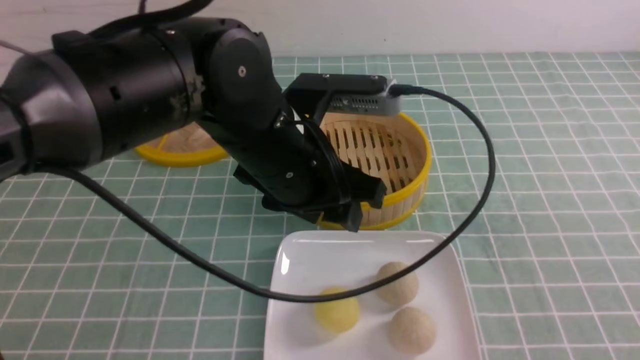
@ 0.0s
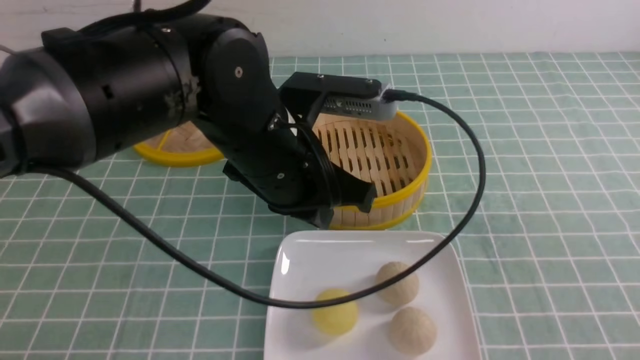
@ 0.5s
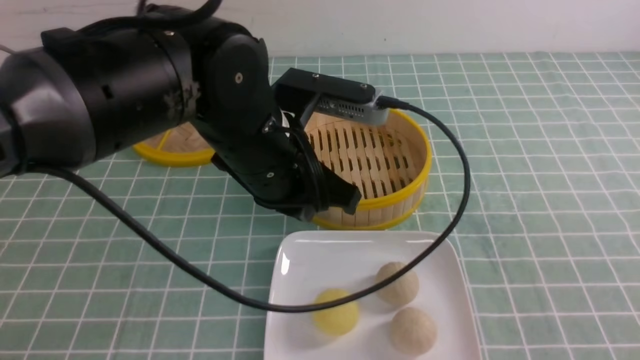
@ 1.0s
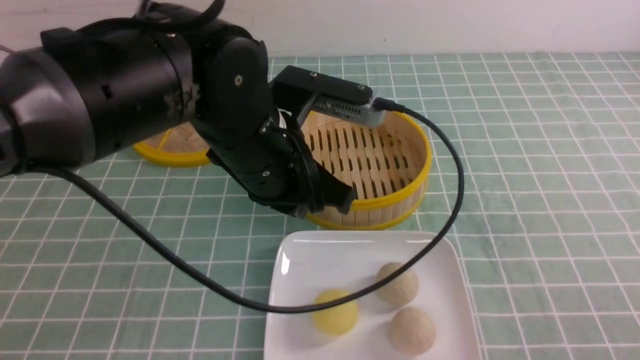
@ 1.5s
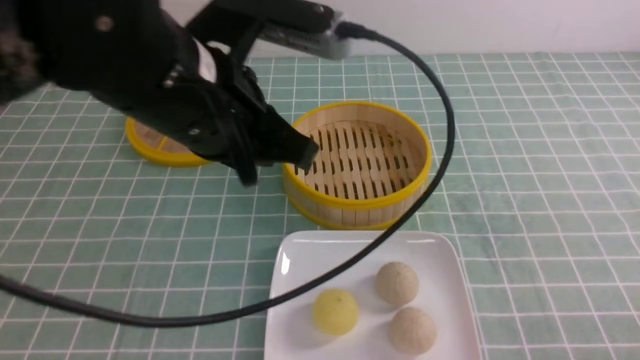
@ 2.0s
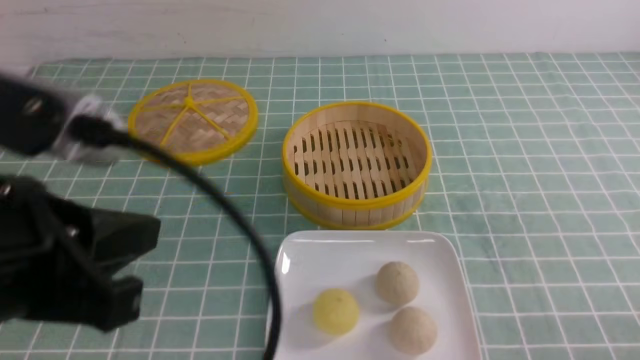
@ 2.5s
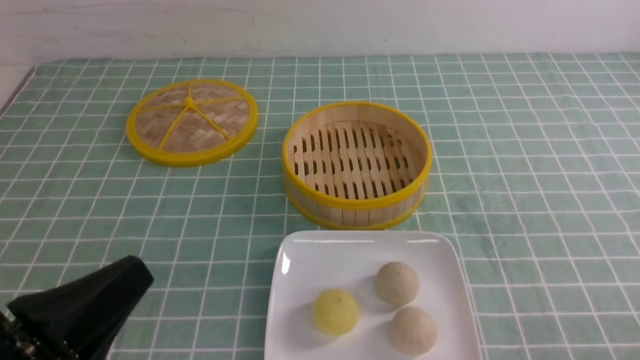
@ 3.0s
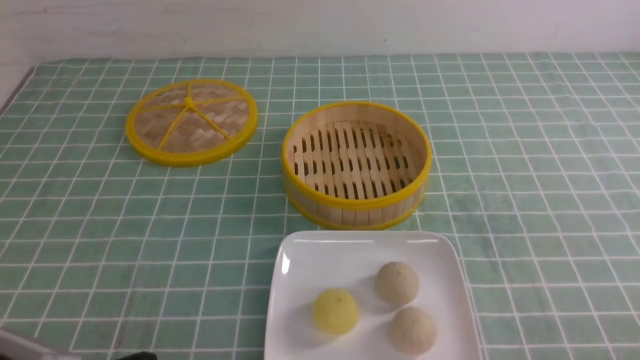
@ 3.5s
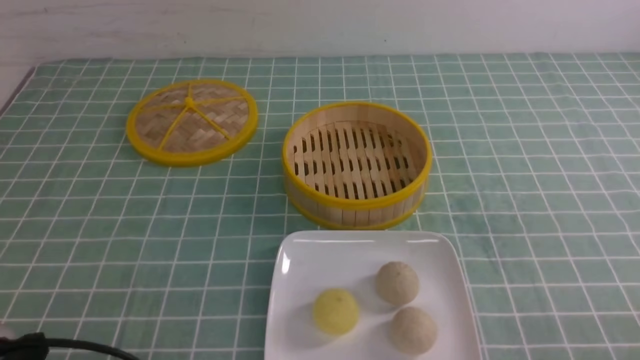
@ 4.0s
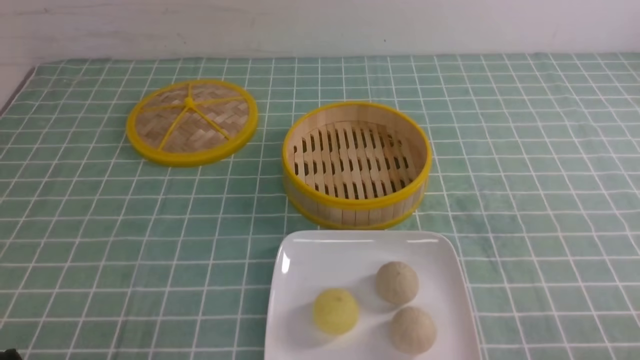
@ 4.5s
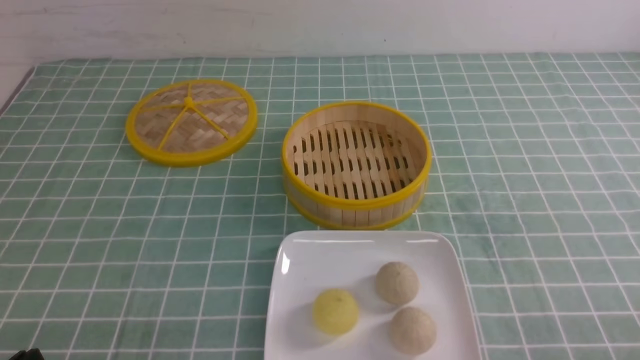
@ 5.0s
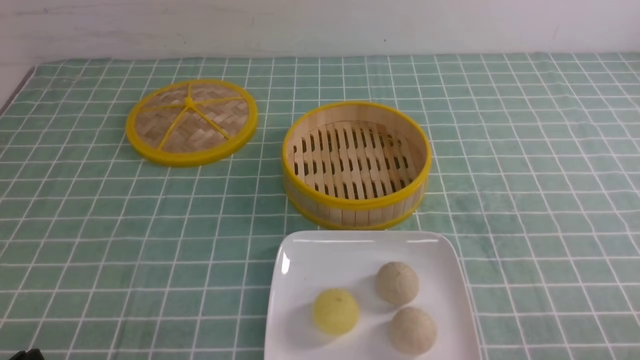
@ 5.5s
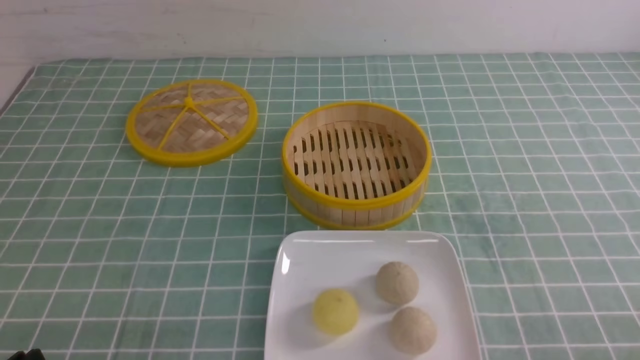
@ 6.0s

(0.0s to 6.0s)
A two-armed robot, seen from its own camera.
0.0s - 2.0s: The left gripper travels upward and to the left by about 10 cm, and closes up. The right gripper is displaced downward by some 15 cm.
2.0s - 4.0s: The left gripper is displaced downward, to the left and backward by about 30 cm.

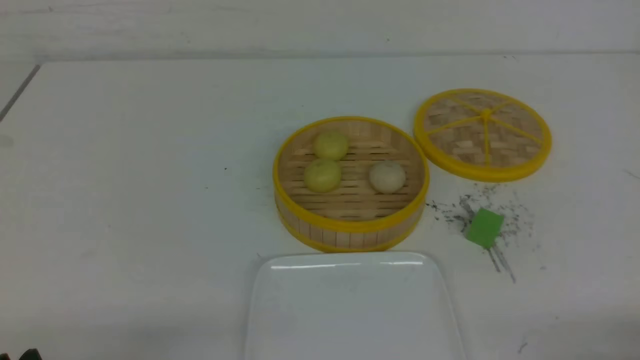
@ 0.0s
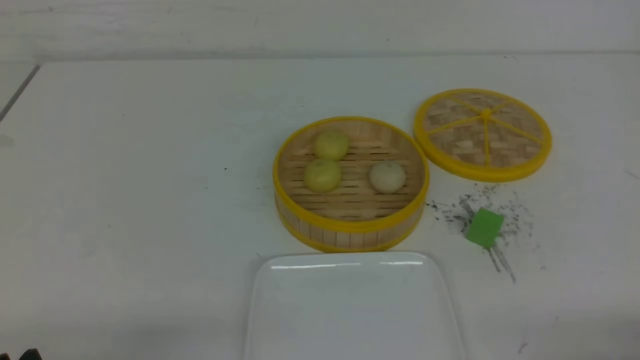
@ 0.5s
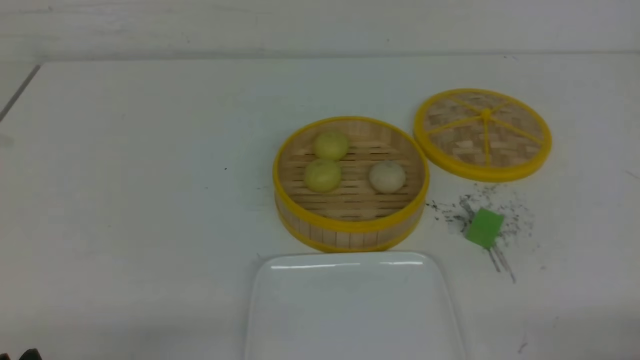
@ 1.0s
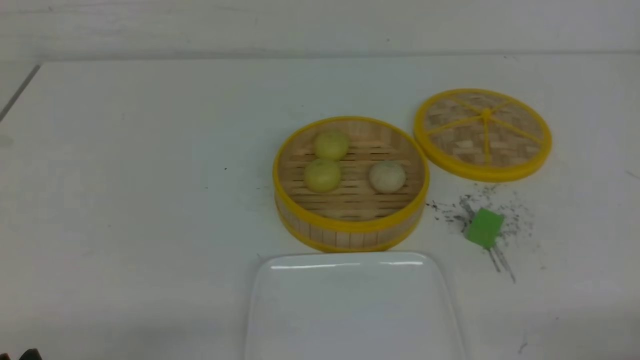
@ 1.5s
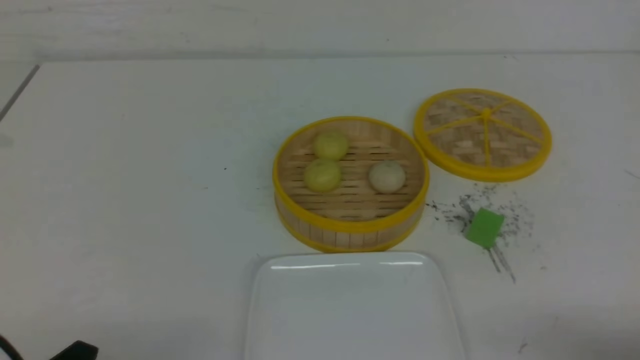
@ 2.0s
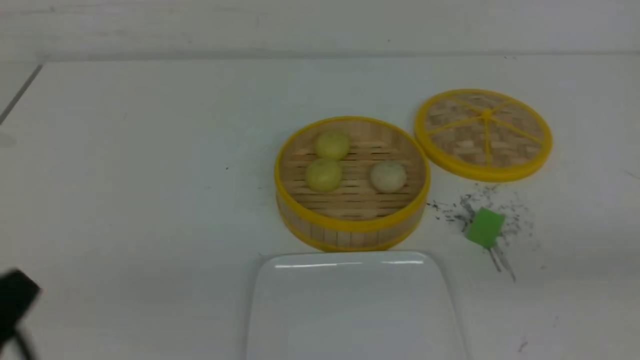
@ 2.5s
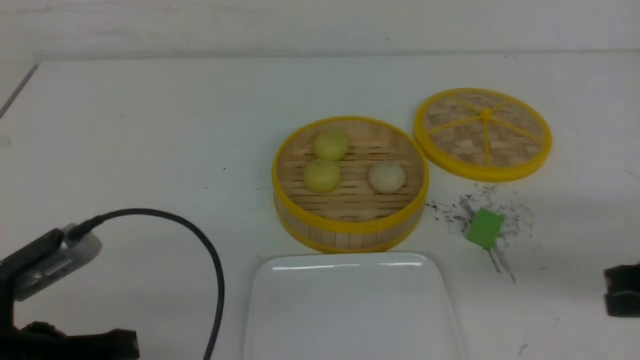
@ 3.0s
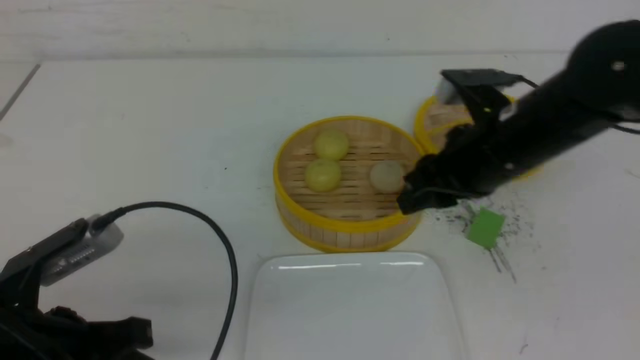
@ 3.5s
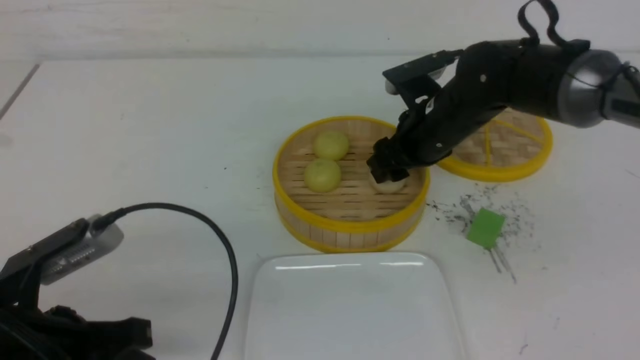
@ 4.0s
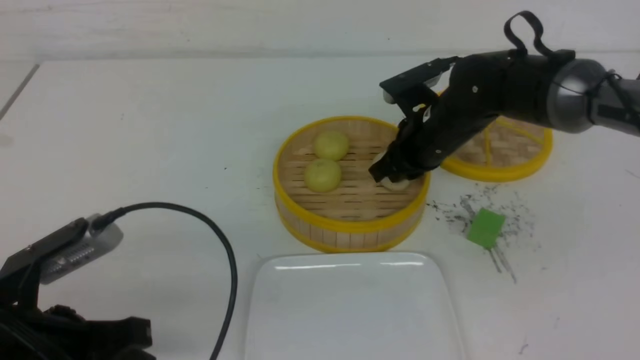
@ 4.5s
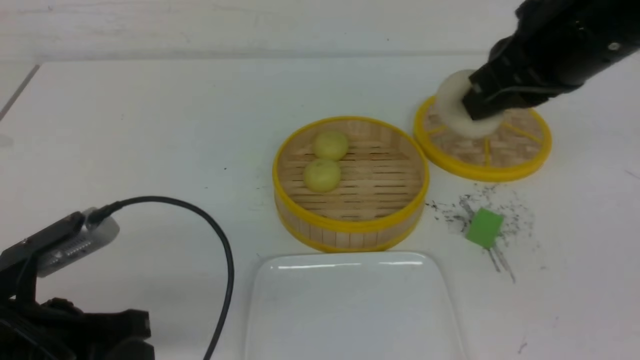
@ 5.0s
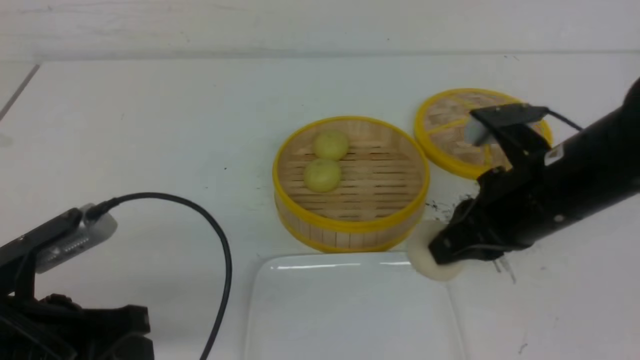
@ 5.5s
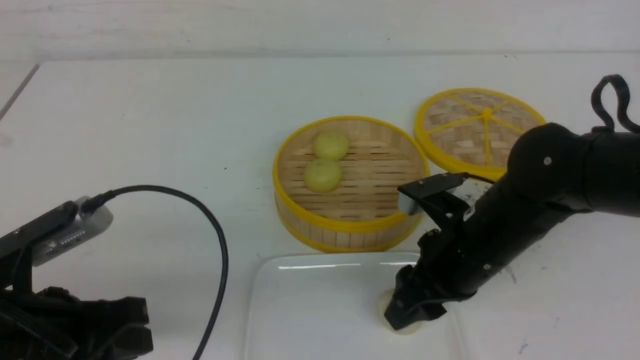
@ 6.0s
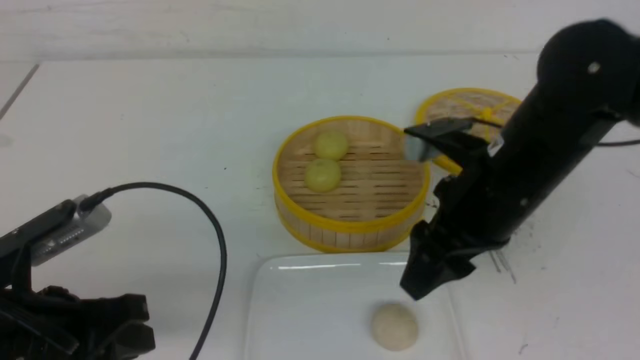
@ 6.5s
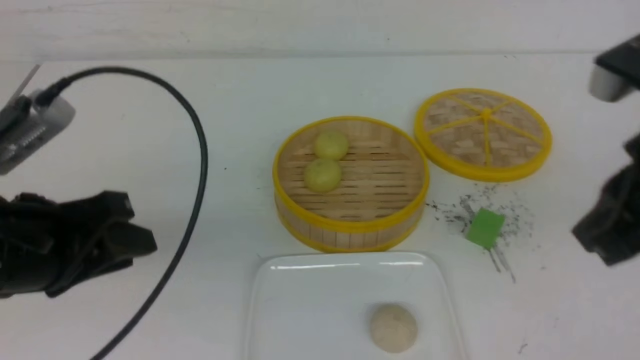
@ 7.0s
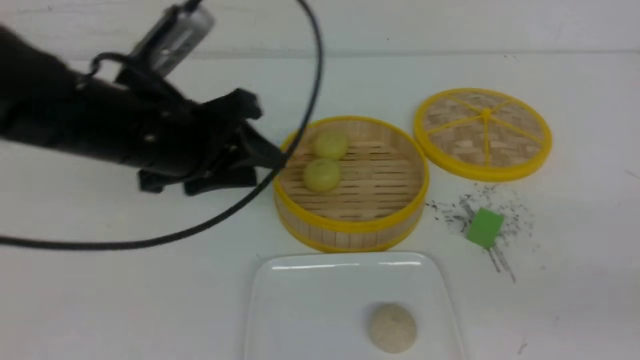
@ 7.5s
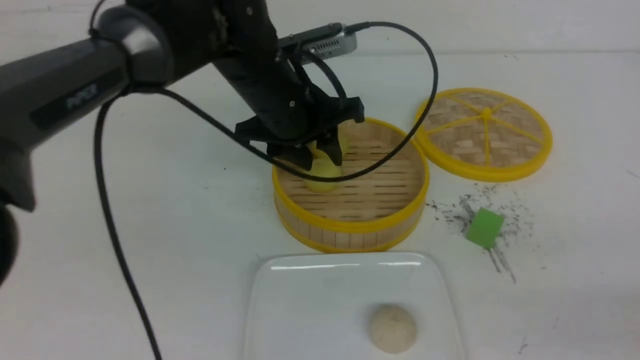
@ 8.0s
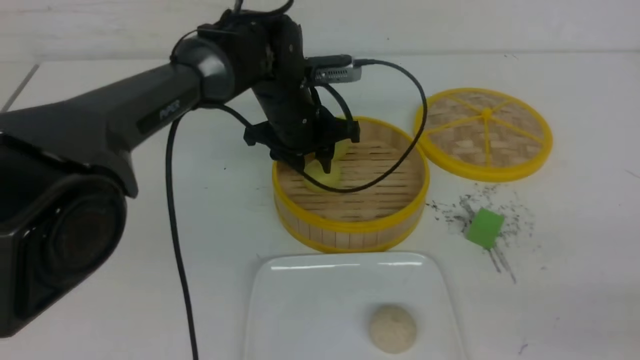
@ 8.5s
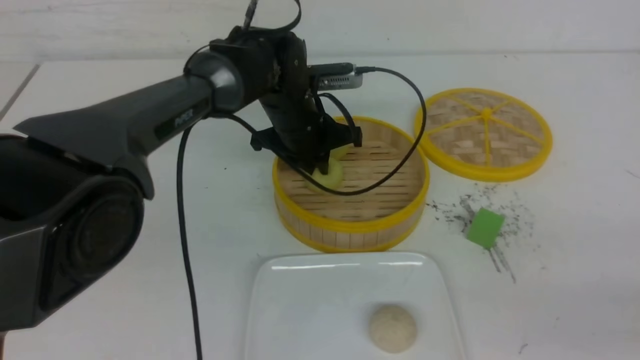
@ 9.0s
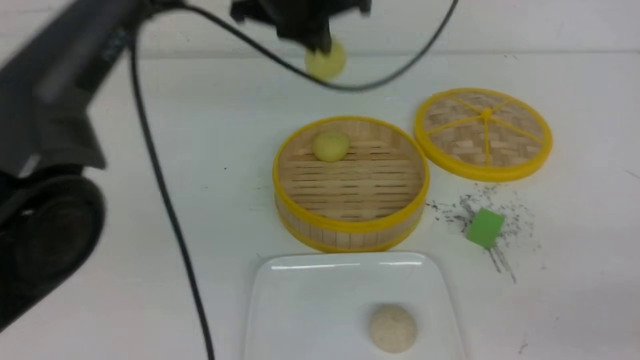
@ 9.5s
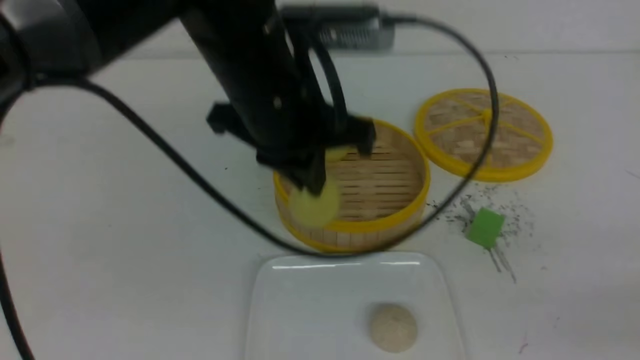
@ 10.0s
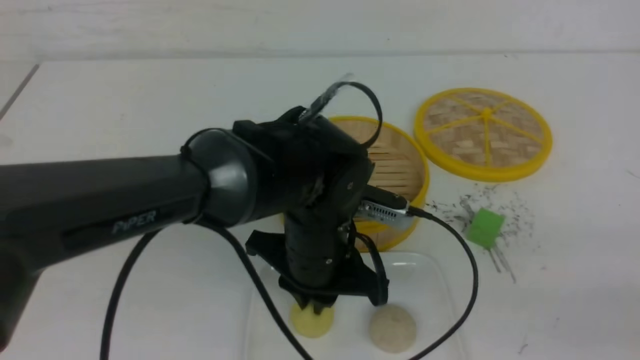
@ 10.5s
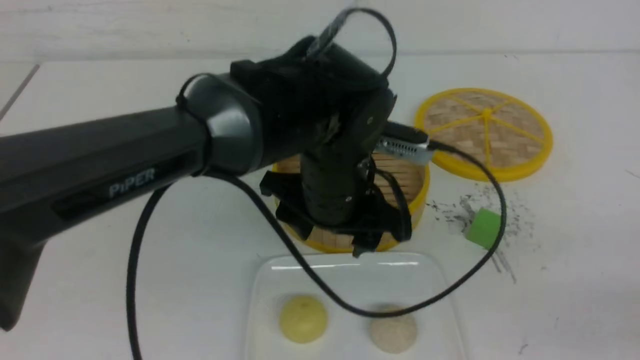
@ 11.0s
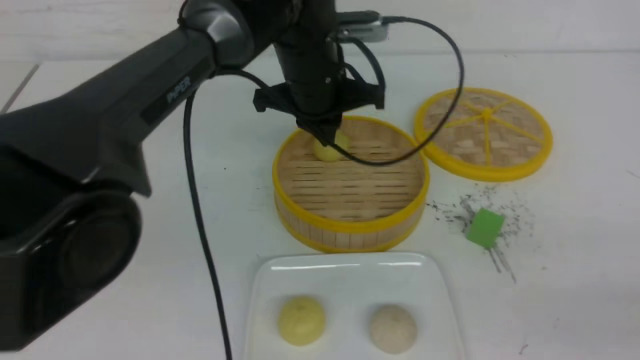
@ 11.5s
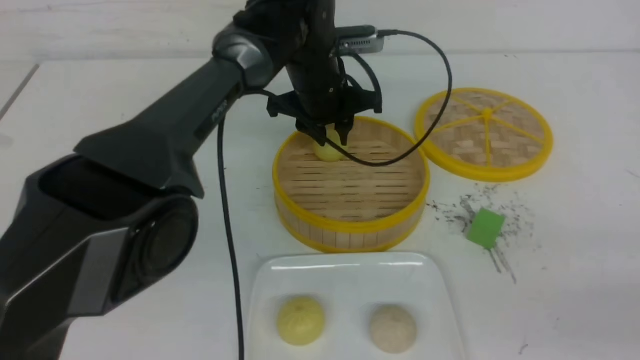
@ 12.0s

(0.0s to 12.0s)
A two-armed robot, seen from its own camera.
Step, 0.0s - 4.5s: use the right arm to grab the steamed stuffed bun that is closest to it.
Step, 5.0s - 6.0s: use the right arm to put the steamed stuffed bun into the plate.
Step, 6.5s - 9.0s: use the left arm to grab the steamed stuffed bun that is closest to it.
Step, 9.5s - 10.5s: use the left arm to put the steamed stuffed bun into the plate.
2.0s - 4.0s: The right gripper travels forward and to the left by roughly 40 cm, and opens its fingers. Meanwhile the left gripper heads forward, covering approximately 10 cm, and closes its fingers.
4.0s - 6.0s: The right gripper goes about 15 cm backward, travels upward and back again, about 15 cm each way, and closes, then opens again.
6.0s - 8.0s: The right gripper shifts roughly 25 cm backward and to the right, and closes its fingers. Meanwhile the left gripper goes about 30 cm forward and to the right, and opens.
8.0s - 10.0s: The left gripper swings up and down, about 15 cm each way, with 2 reversals, and closes up.
10.0s - 12.0s: The left gripper moves forward and downward, approximately 20 cm, and opens up.

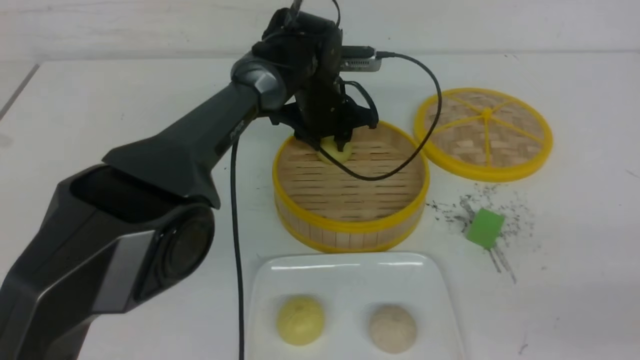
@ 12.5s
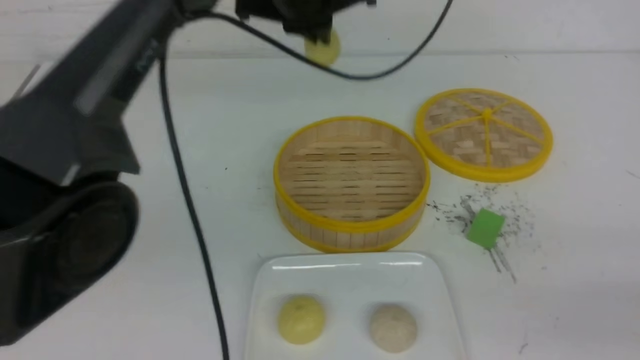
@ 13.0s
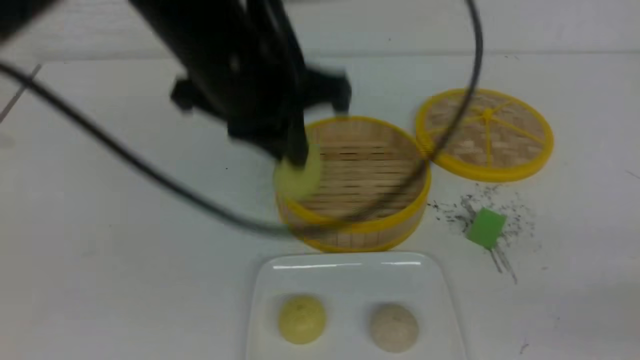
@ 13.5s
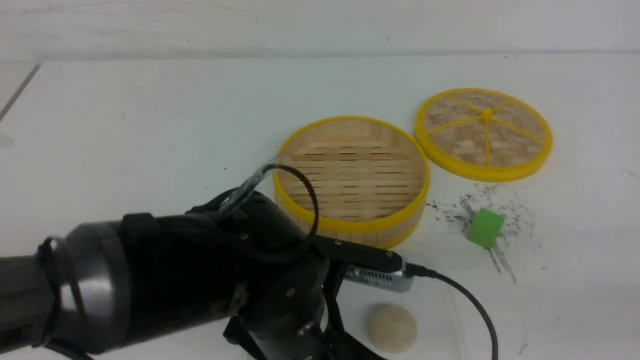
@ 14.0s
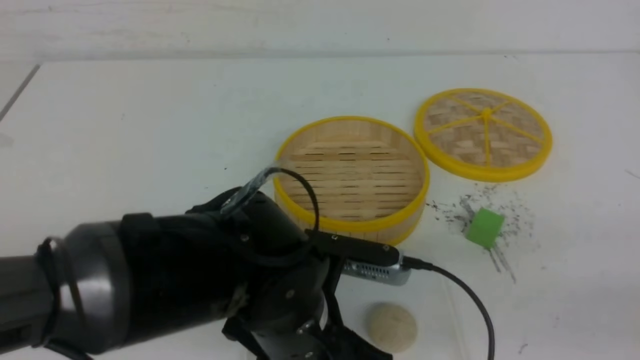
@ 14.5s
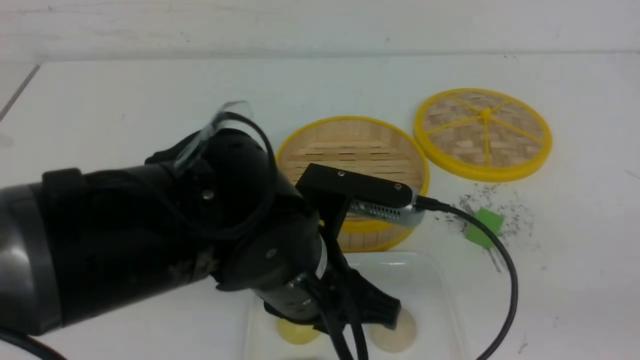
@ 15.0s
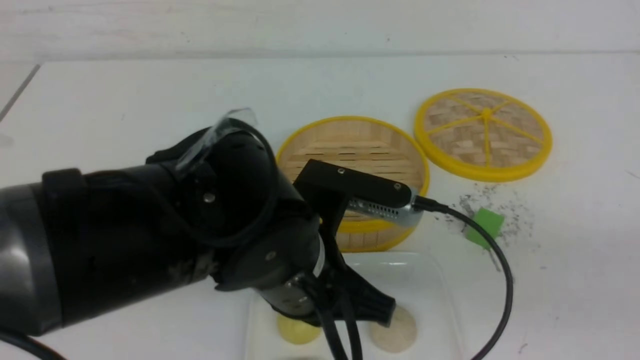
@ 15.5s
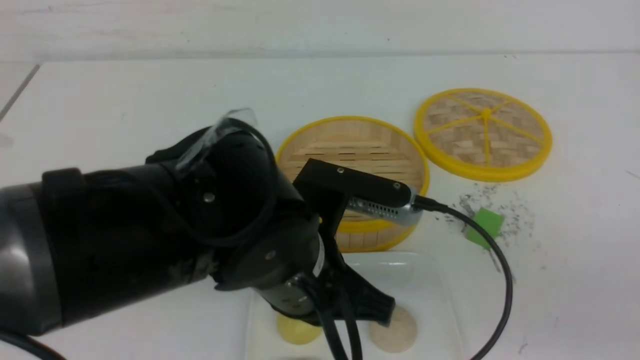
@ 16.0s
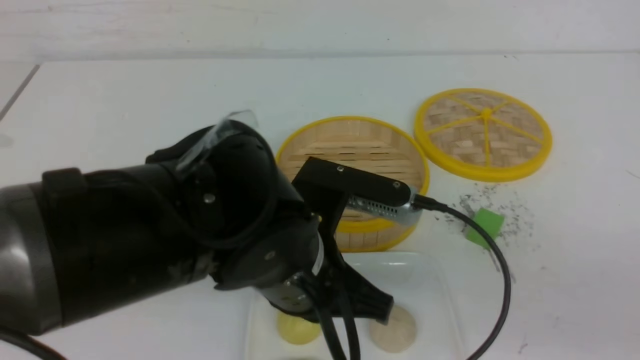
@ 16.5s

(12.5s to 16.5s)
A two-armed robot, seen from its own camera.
Step, 13.0s - 14.5s: use the left arm to put the steamed stuffed bun into the plate.
12.5s - 14.5s: The left gripper travels backward by roughly 30 cm, and closes and opens again.
14.5s - 16.5s: The left gripper closes its fingers.
